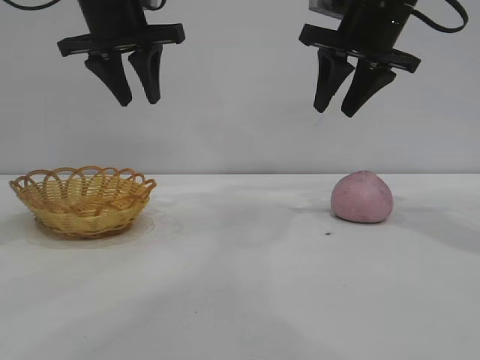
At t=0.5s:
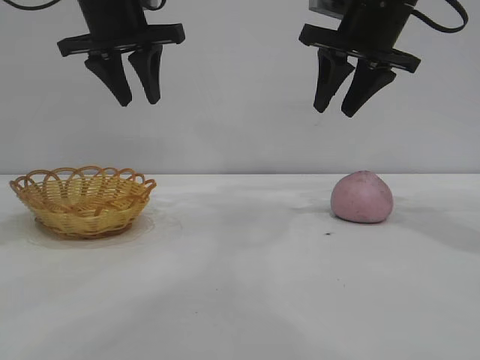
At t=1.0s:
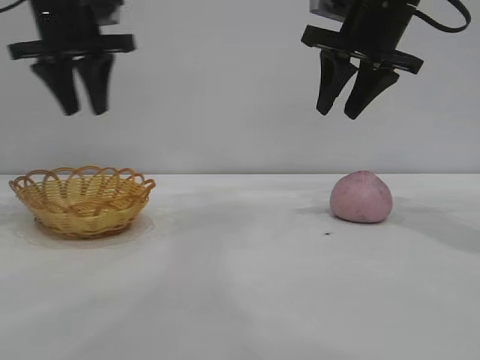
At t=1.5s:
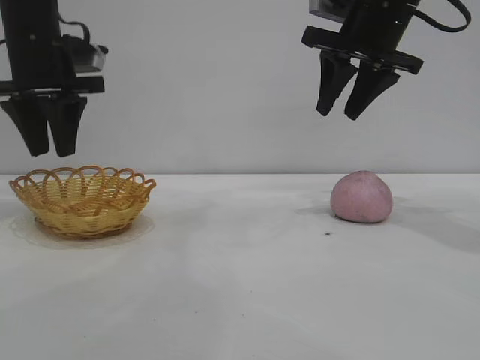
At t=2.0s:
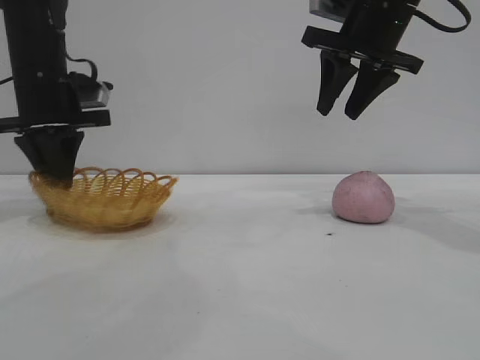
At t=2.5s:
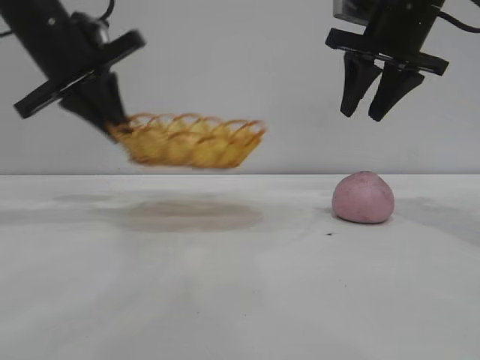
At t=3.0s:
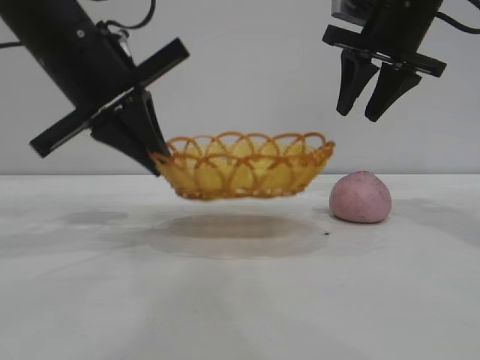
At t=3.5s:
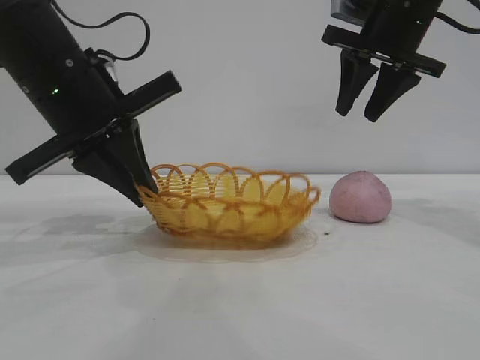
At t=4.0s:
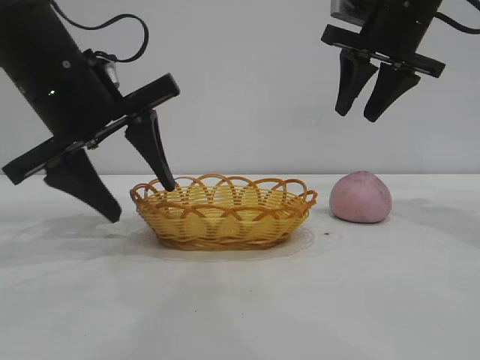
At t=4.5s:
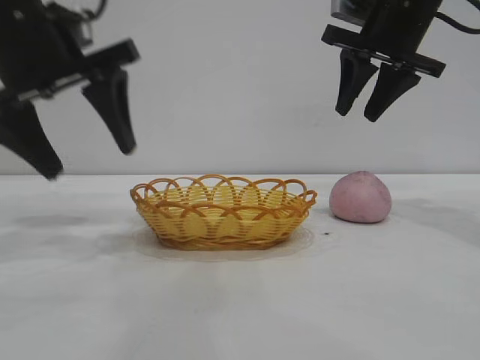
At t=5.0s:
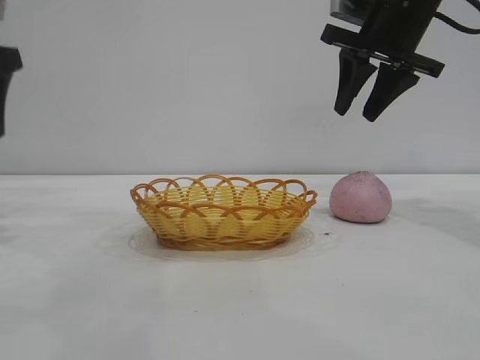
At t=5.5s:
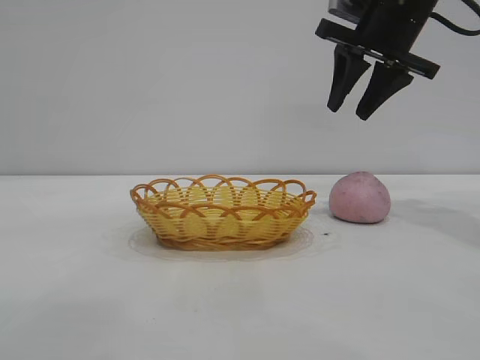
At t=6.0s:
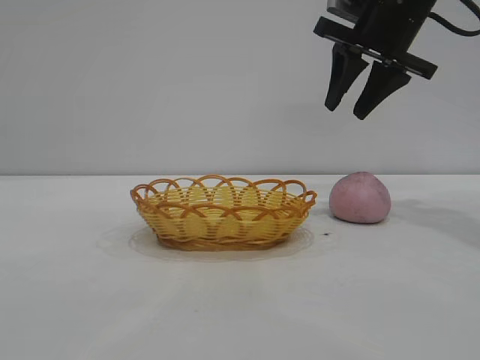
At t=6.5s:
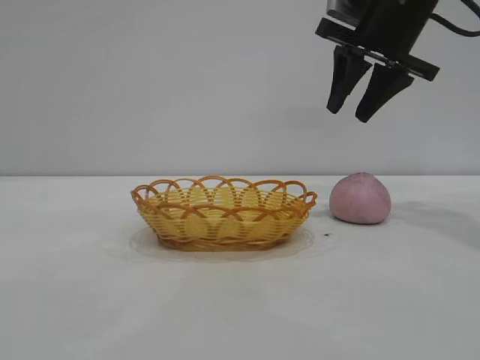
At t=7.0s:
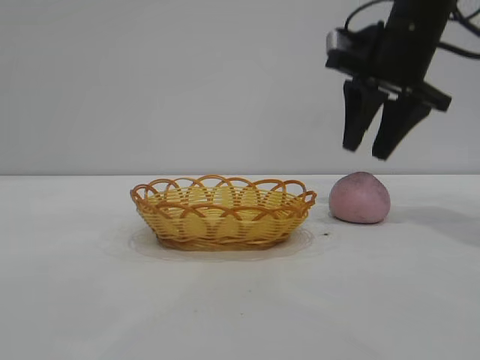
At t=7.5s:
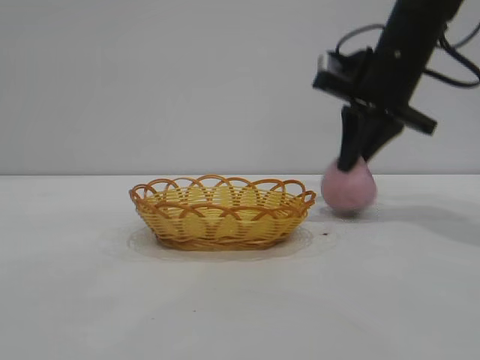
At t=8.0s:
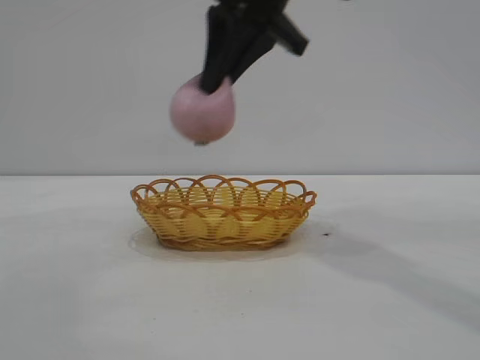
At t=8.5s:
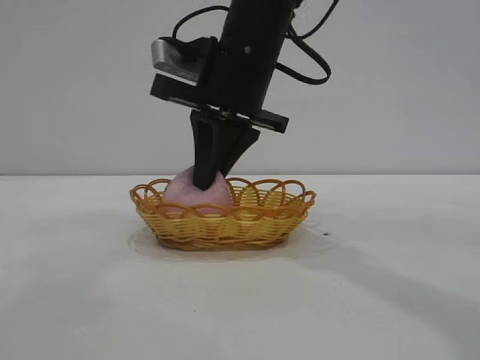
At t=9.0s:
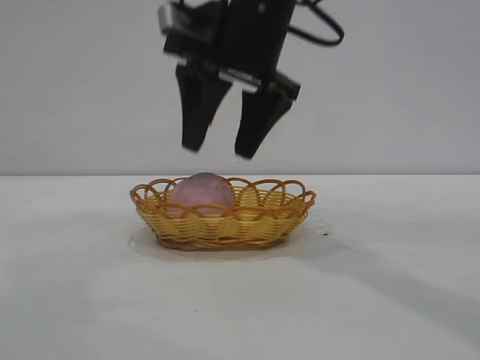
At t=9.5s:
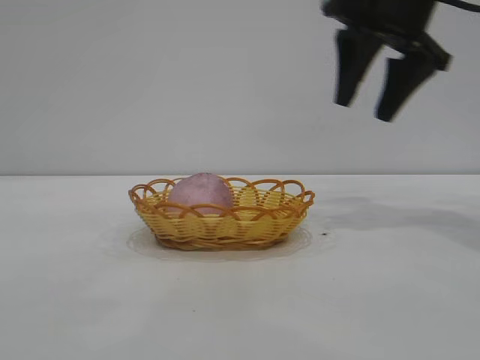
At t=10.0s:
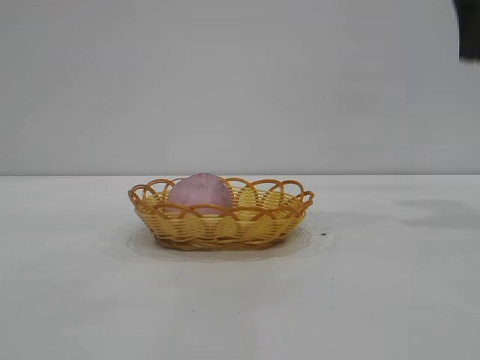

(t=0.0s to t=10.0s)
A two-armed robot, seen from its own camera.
Task of the whole recording: pick up the peach and put it into the basket.
Step, t=0.0s - t=4.0s: Move the basket to the center of view.
Step, t=5.0s - t=7.5s: Pick up the peach.
Step, t=8.0s - t=9.0s: place the peach into the basket.
